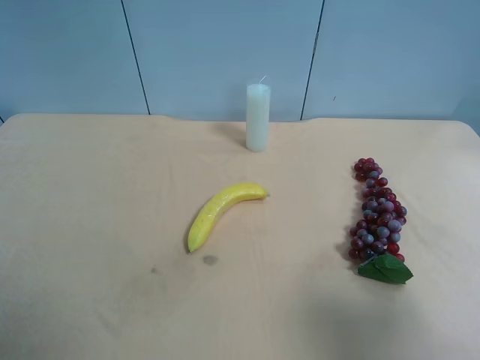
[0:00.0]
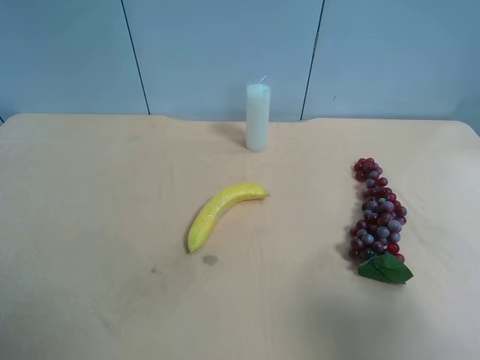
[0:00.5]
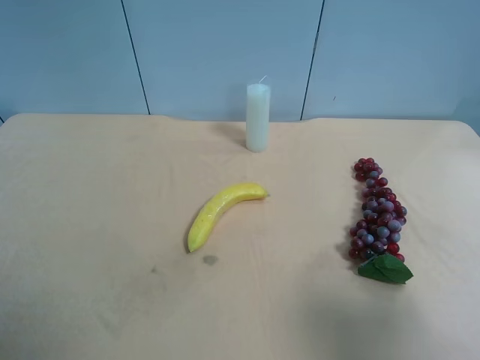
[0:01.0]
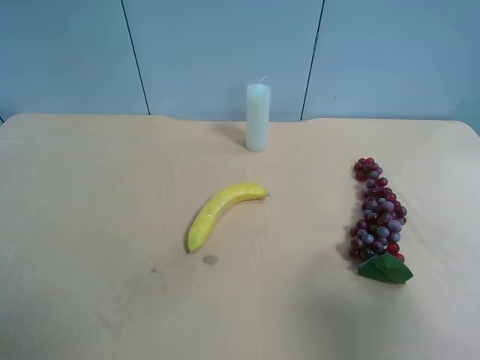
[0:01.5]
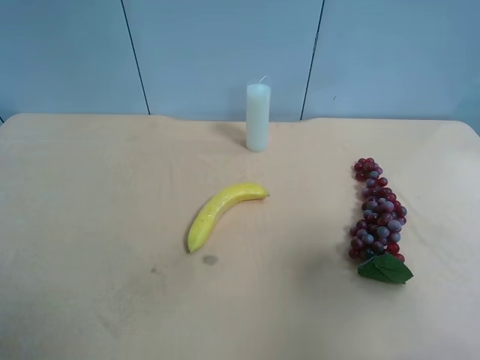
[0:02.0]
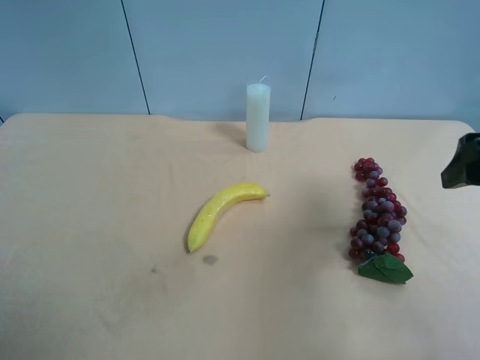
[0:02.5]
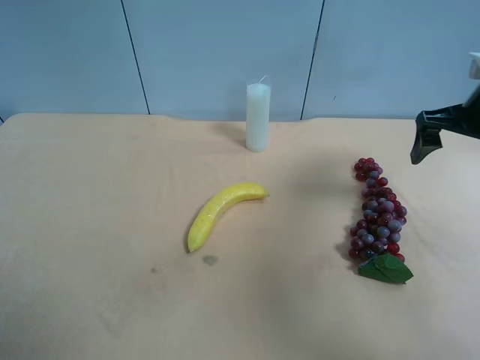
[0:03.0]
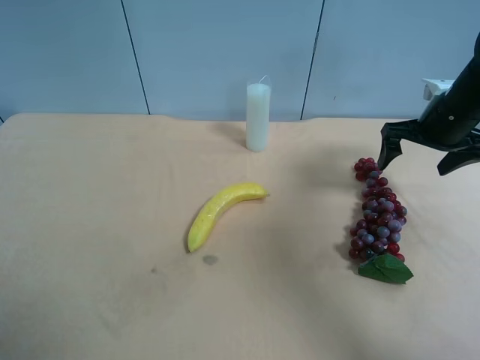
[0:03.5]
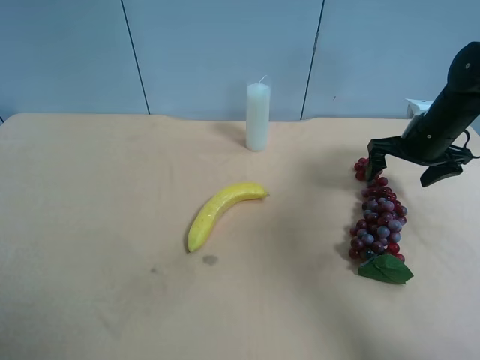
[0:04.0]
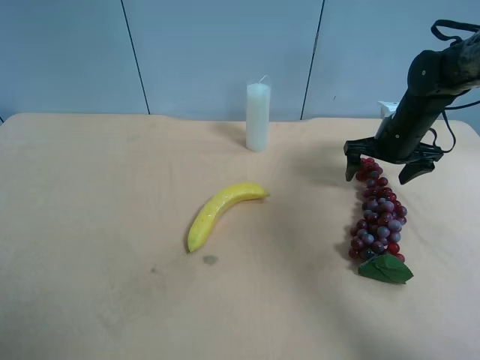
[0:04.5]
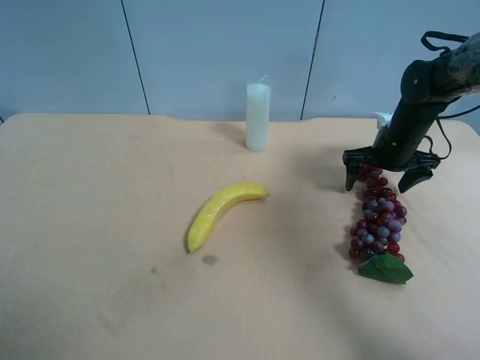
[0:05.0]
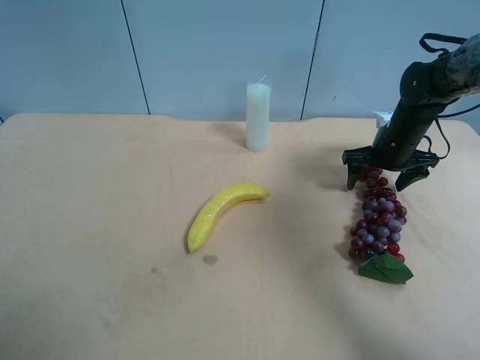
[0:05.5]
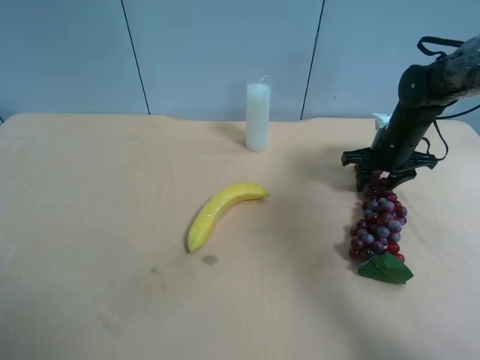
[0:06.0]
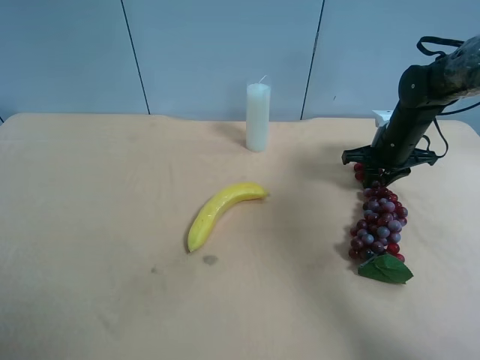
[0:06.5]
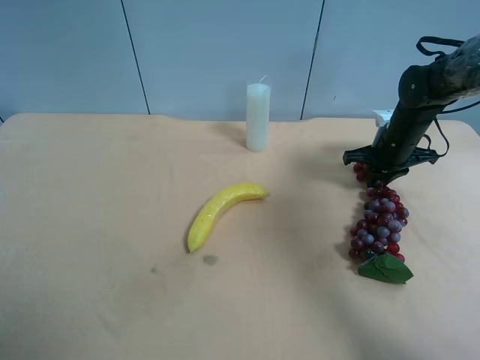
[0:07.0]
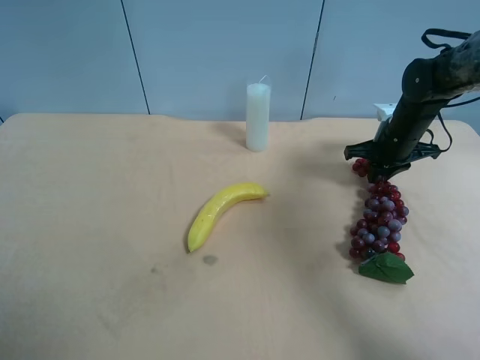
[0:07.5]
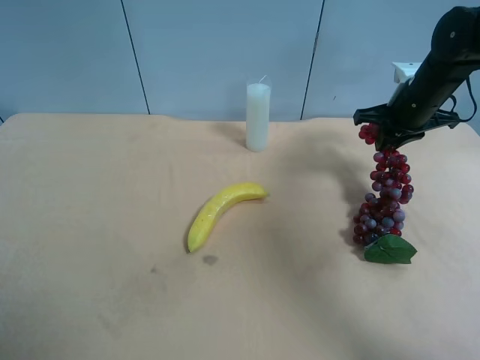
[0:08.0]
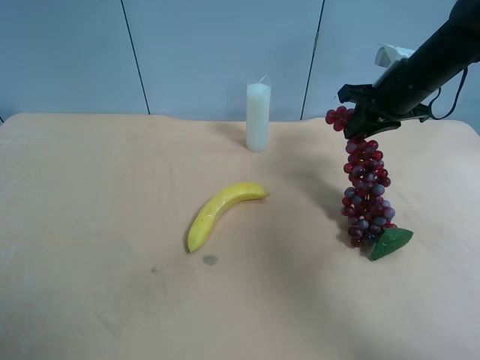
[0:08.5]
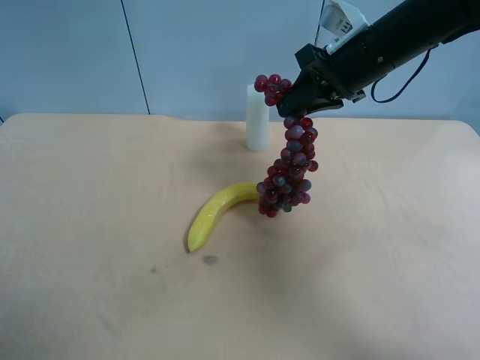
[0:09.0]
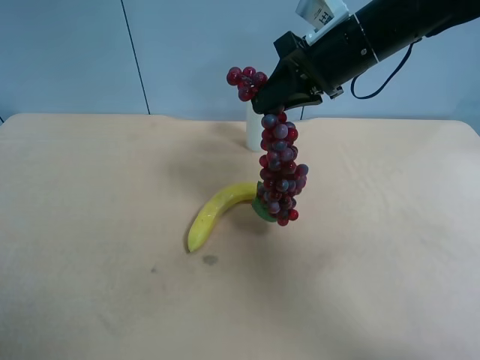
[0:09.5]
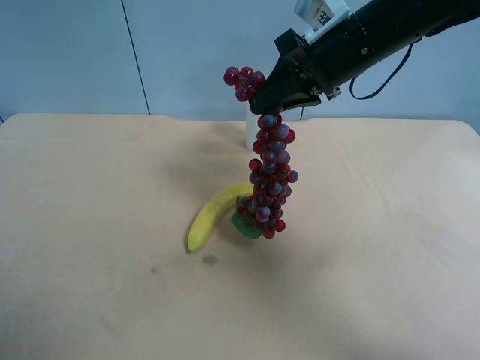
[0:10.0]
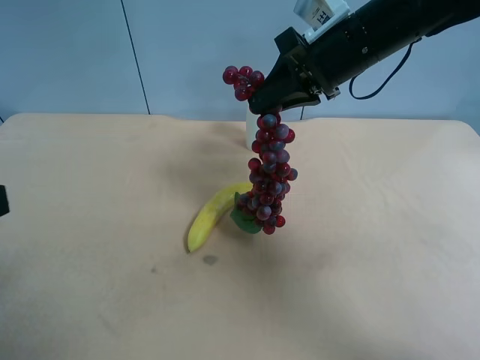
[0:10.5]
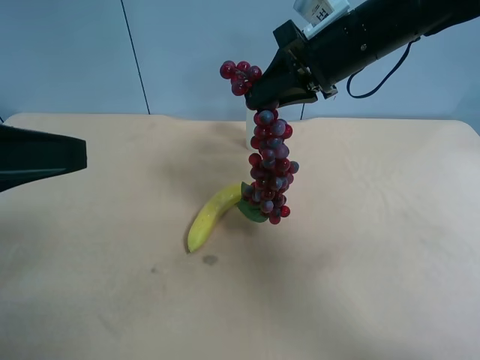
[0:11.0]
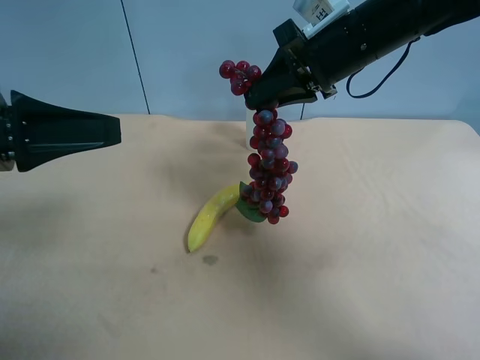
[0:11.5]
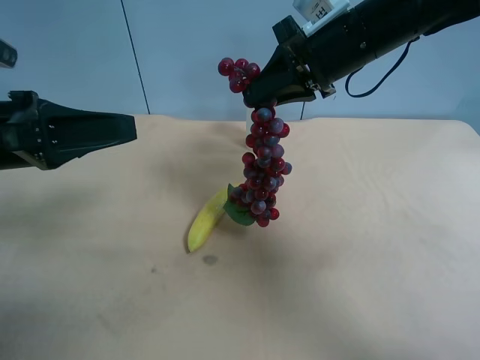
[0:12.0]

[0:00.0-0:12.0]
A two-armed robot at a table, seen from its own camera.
Task of the whole recording: use the right gripper to pick up the item and transfer it from the right gripper to the left gripper.
0:00.0 to 0:02.0: The right gripper travels forward by roughly 10 cm.
0:02.0 to 0:04.0: The right gripper heads forward and downward, covering about 35 cm.
0:04.0 to 0:06.0: The right gripper shifts by roughly 5 cm, and closes up.
0:06.0 to 0:08.0: The right gripper goes roughly 10 cm upward, and closes.
0:08.0 to 0:10.0: The right gripper moves to the left, upward and backward, some 20 cm.
0:10.0 to 0:12.0: The left gripper travels forward by roughly 25 cm.

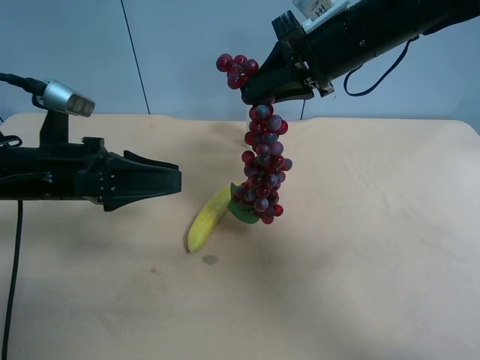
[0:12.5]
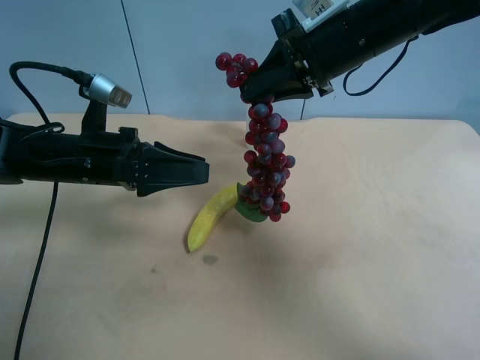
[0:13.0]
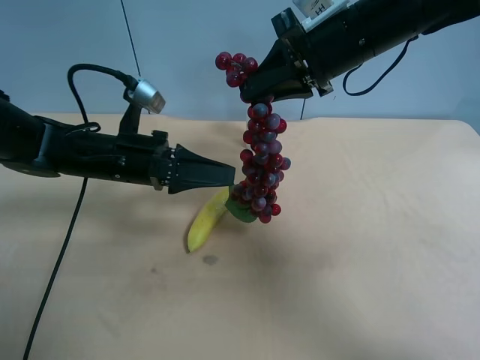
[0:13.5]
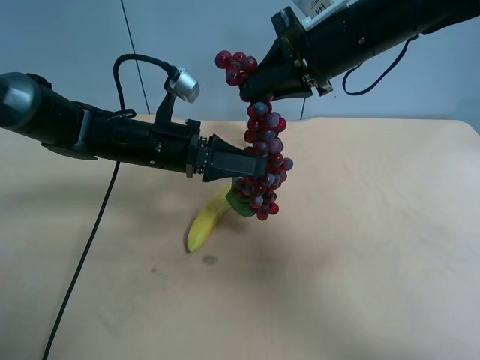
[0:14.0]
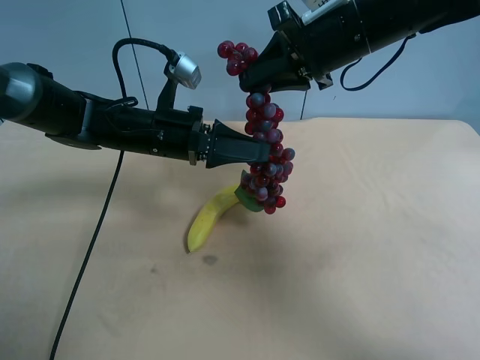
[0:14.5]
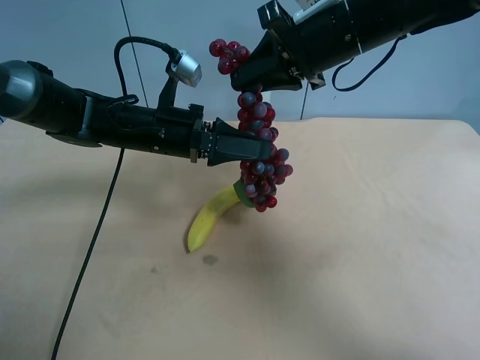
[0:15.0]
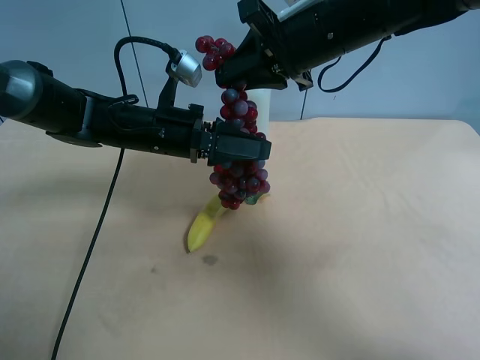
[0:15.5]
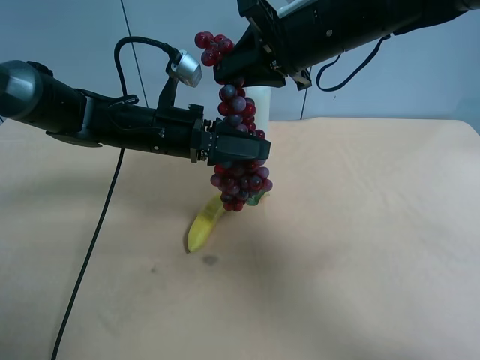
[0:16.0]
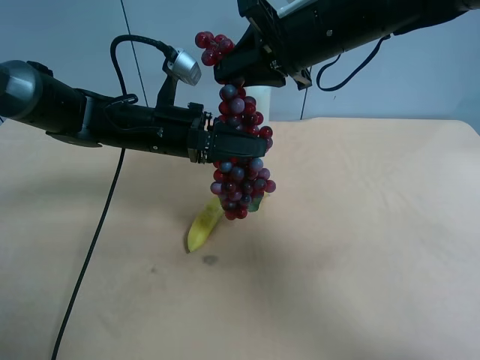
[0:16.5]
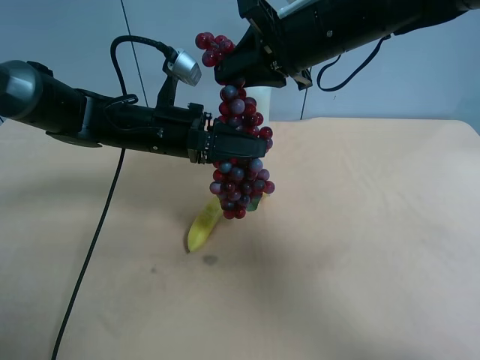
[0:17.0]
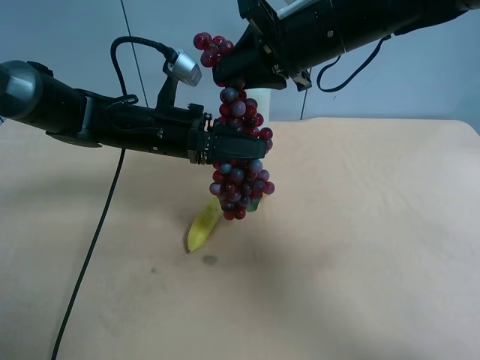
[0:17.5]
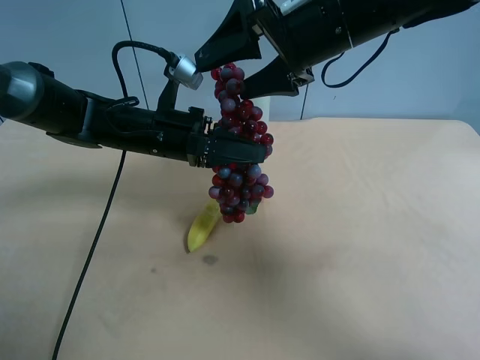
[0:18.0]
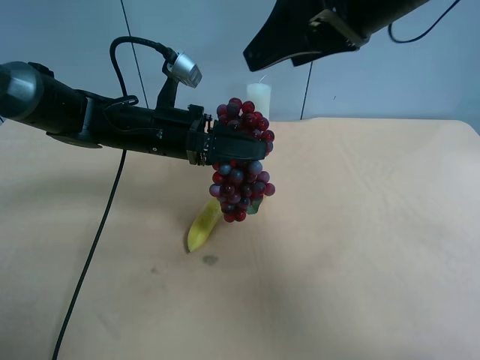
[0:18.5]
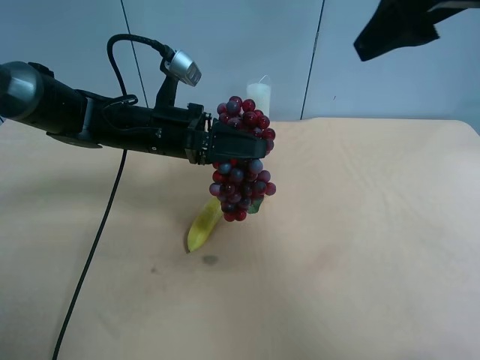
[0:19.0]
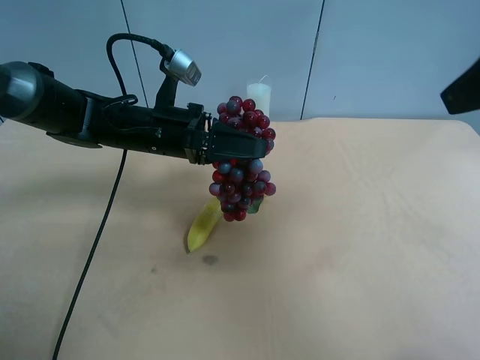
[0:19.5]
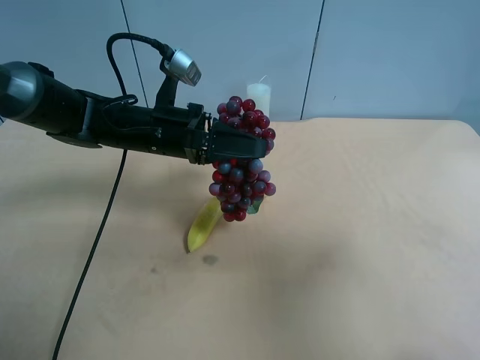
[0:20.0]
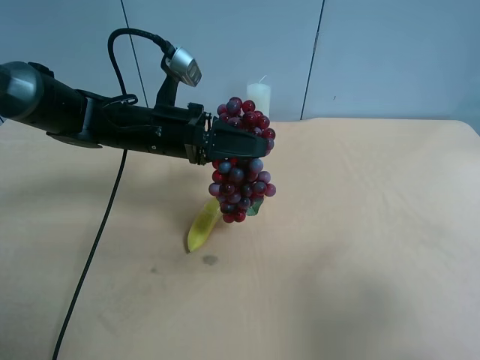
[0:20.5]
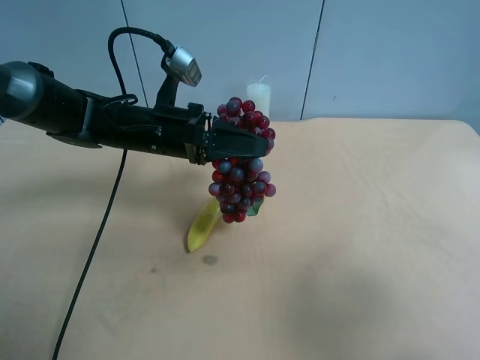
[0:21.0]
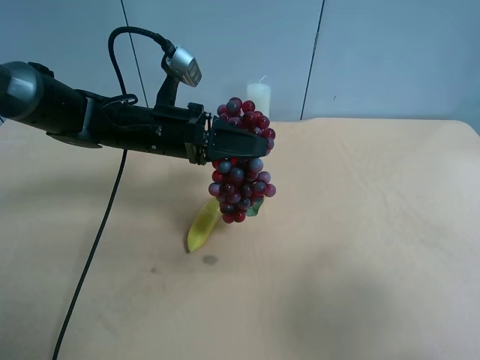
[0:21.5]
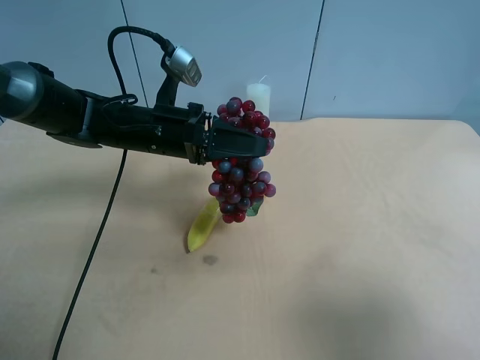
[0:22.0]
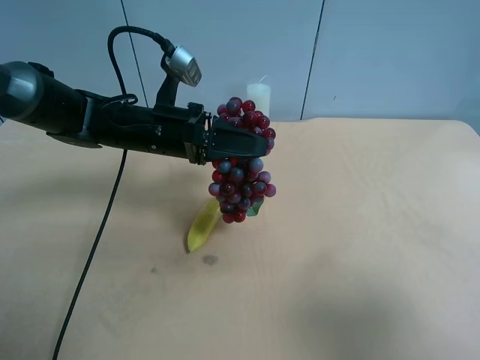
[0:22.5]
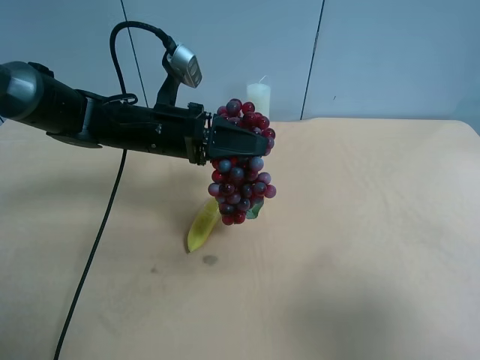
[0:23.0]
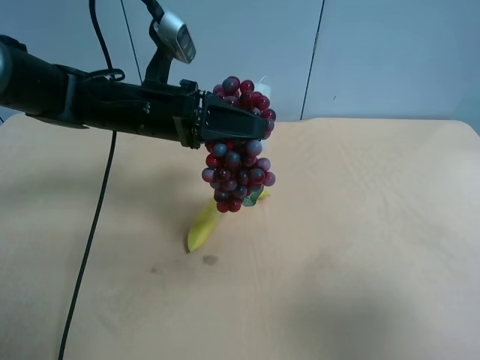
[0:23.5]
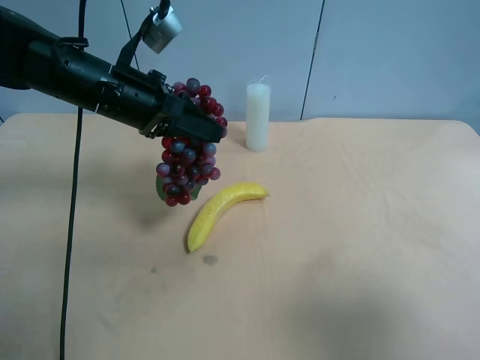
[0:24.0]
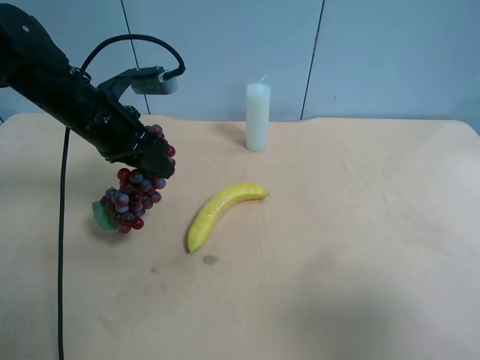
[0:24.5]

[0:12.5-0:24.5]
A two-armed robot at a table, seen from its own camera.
Task of the whole recording: use the right gripper to pick up the item and transfer it from the right gripper to the left gripper.
0:12.5 to 0:14.5: The left gripper is displaced to the right and forward by about 15 cm.
0:14.5 to 0:16.5: The left gripper closes its fingers.
0:16.5 to 0:18.5: The right gripper heads upward and backward, covering approximately 10 cm, and opens its fingers.
0:18.5 to 0:20.5: The right gripper travels backward and to the right by some 30 cm.
0:22.5 to 0:24.5: The left gripper shifts about 10 cm to the left.

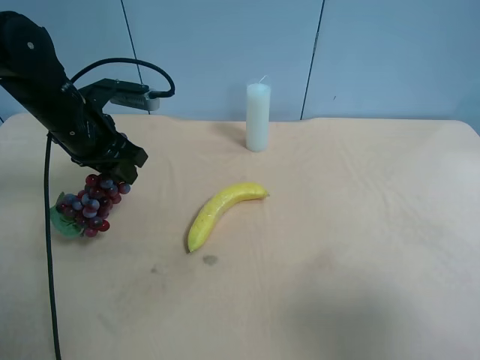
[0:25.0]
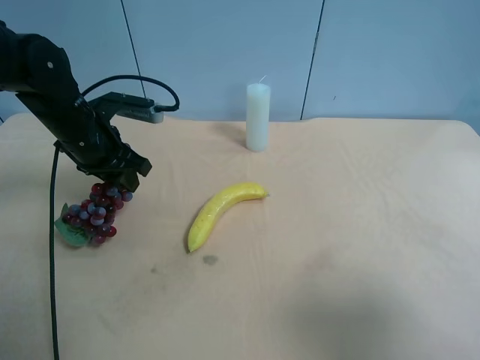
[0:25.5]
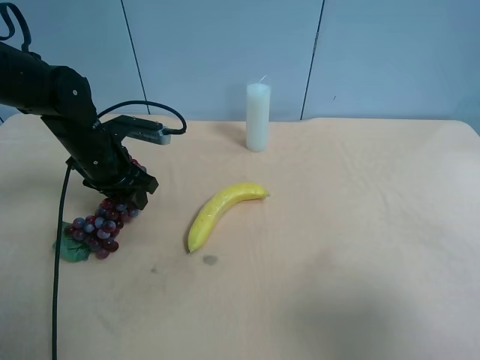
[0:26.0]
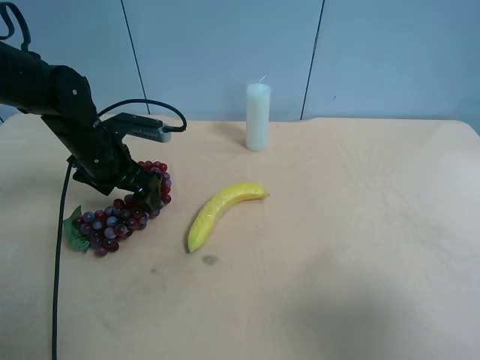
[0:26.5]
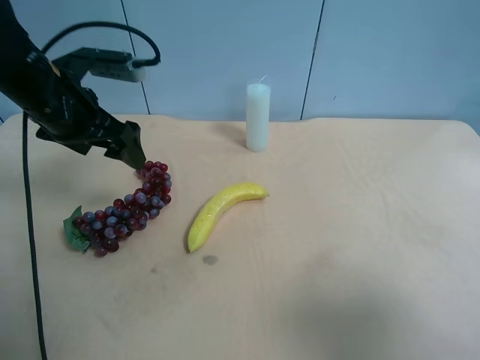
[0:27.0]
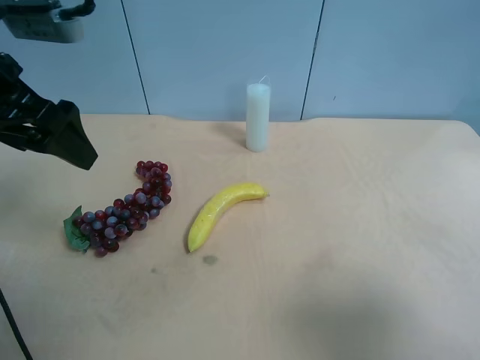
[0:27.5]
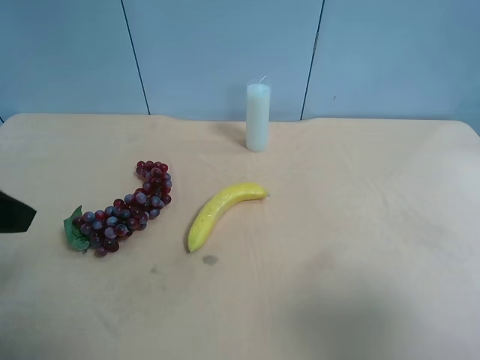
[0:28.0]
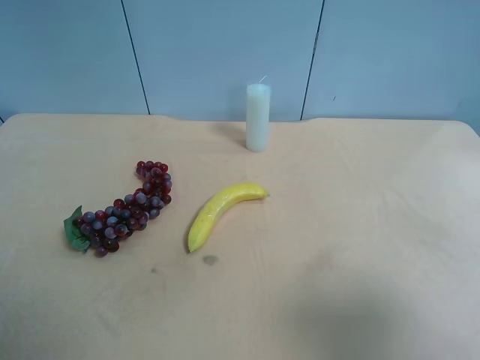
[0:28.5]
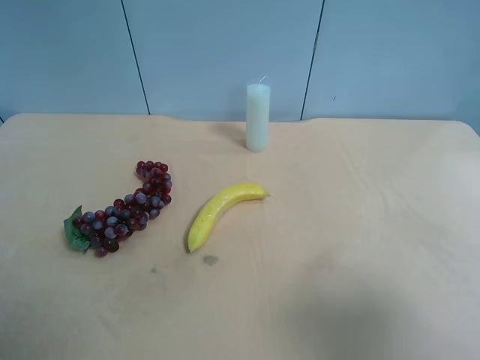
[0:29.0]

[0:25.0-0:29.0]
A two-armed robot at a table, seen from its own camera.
Task of the whole recording: use the right gripper to pick up the item and transfer it from the right gripper to the left gripper.
0:25.0 to 0:27.0: The left gripper is displaced upward by roughly 5 cm, and opens up.
0:27.0 to 0:29.0: The left gripper heads backward, covering some 30 cm.
